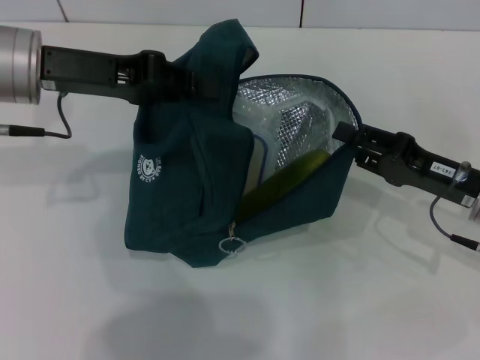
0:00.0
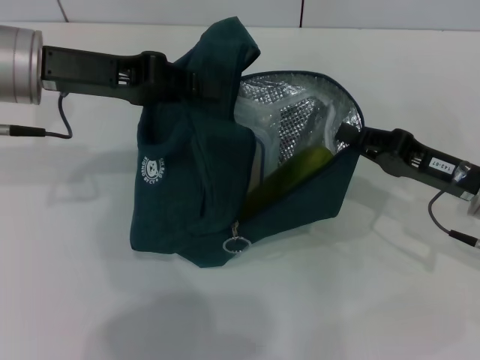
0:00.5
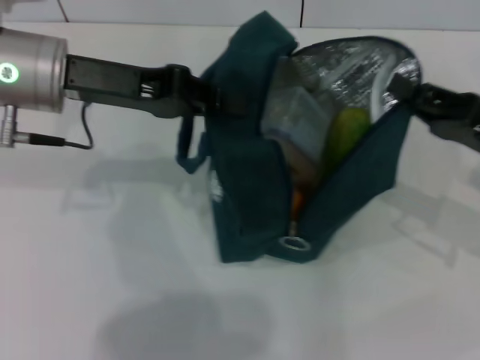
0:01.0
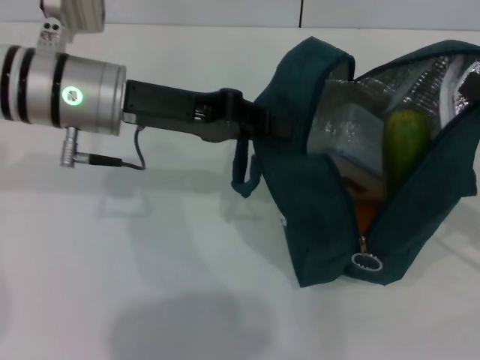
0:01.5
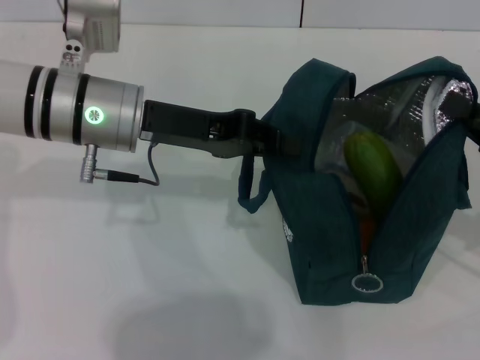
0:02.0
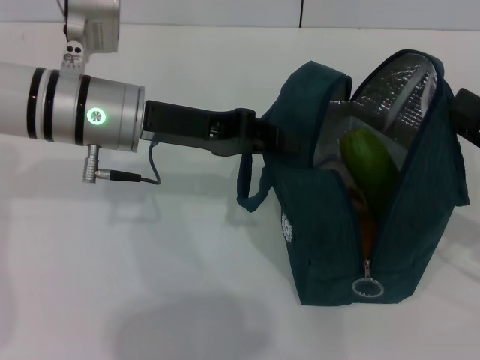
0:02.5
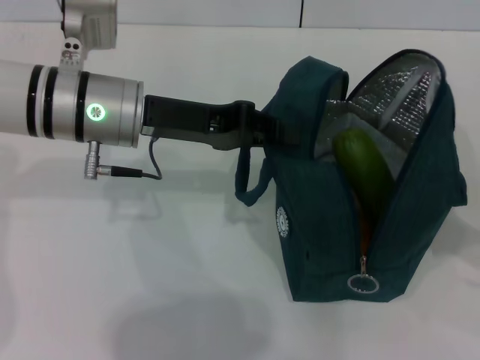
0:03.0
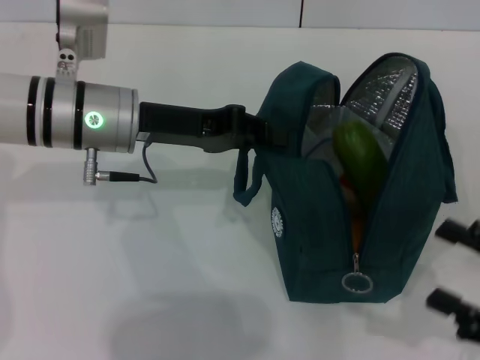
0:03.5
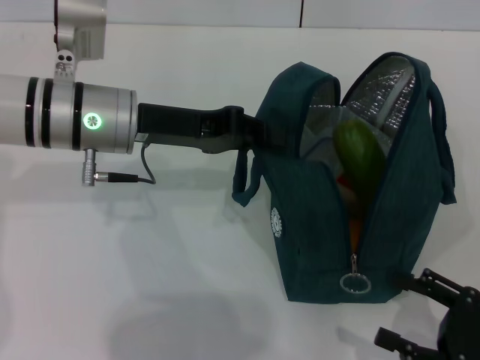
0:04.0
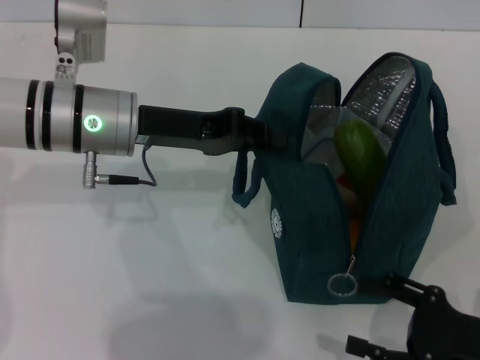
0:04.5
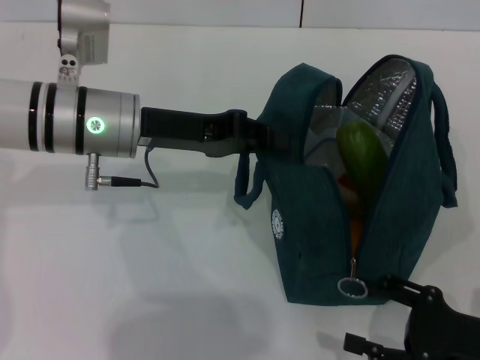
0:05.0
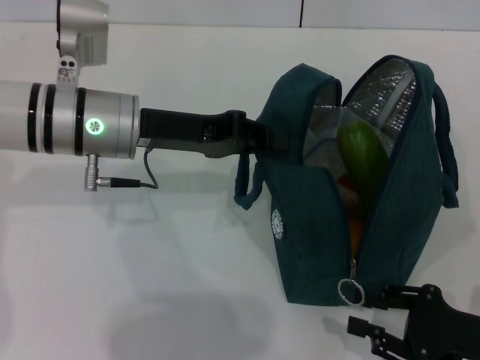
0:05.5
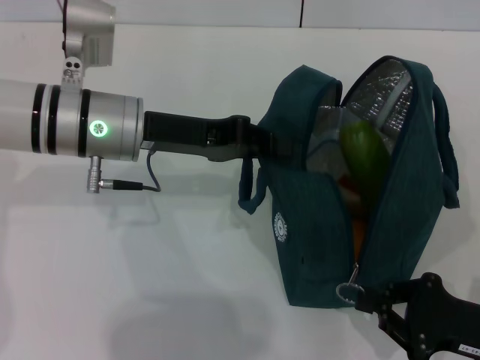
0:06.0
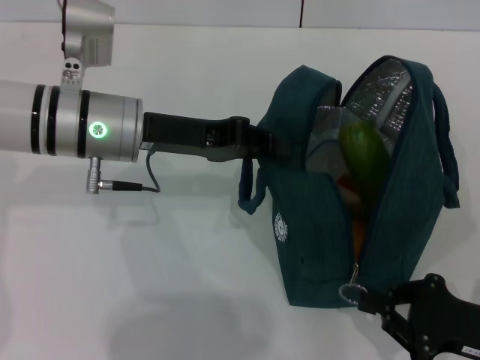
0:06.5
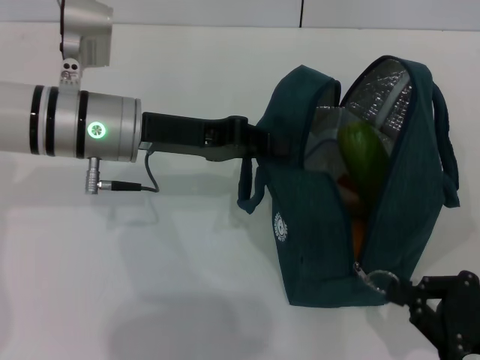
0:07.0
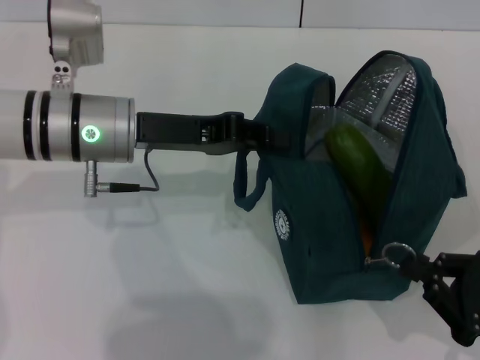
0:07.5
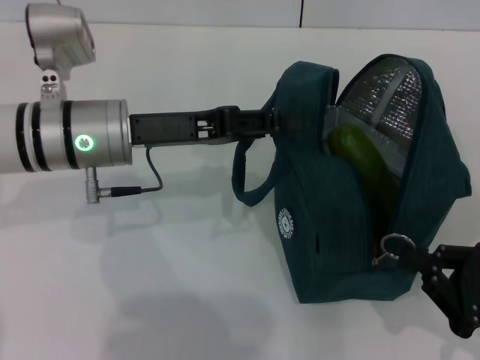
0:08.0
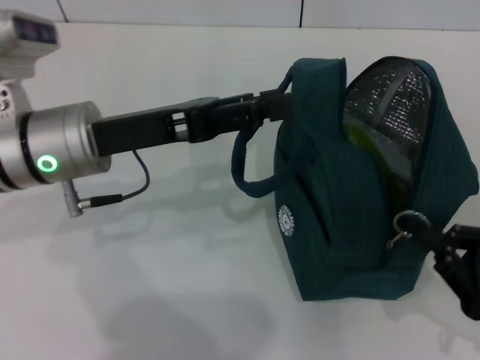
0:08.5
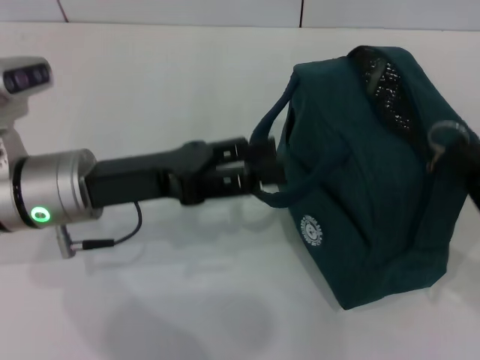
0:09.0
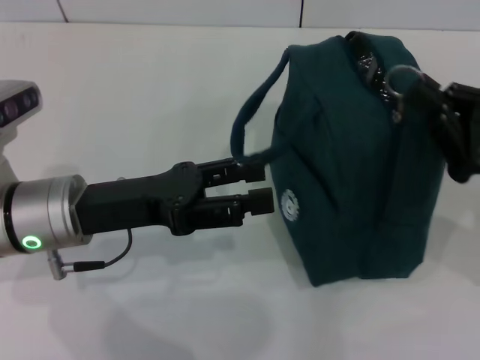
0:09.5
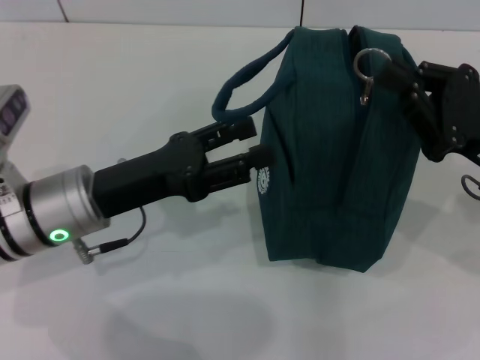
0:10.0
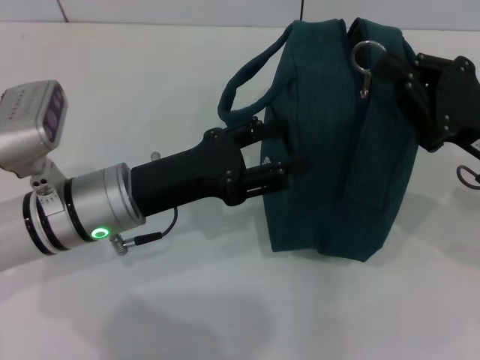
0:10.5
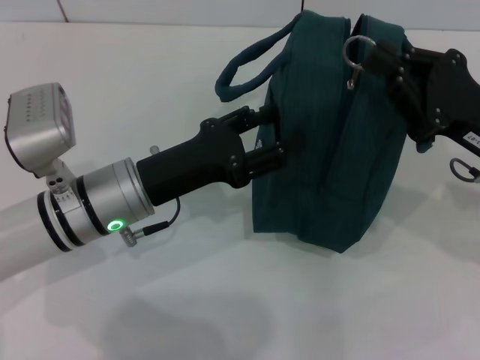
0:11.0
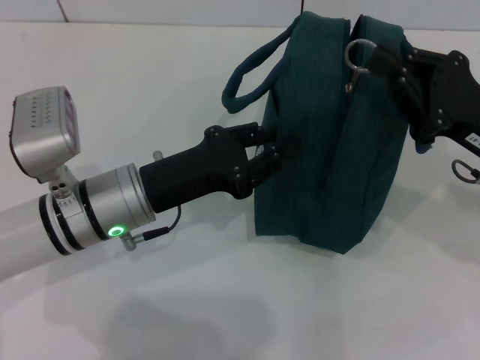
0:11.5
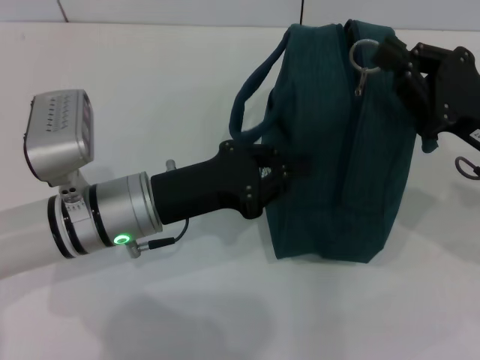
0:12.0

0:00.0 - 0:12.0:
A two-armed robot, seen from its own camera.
Step, 0:00.0 - 0:02.5: Hold the lunch bag with your right hand.
Step, 0:03.0 - 0:08.0: Hold the lunch bag with your left hand.
0:00.0 - 0:02.0: Both grippers travel together to the right, roughly 5 cm. The right gripper closes.
0:02.0 - 0:04.0: The right gripper goes approximately 15 cm backward and downward, and opens.
0:04.0 - 0:06.0: The right gripper closes its fingers.
0:08.0 - 0:10.0: The right gripper is displaced forward and upward by approximately 15 cm; the left gripper heads backward, covering some 5 cm, and opens.
0:10.0 - 0:12.0: The left gripper closes up.

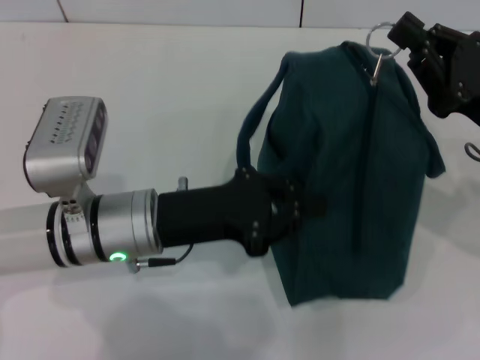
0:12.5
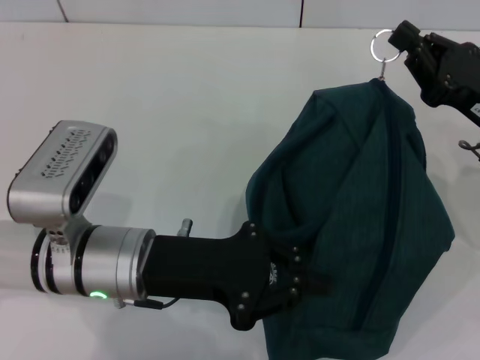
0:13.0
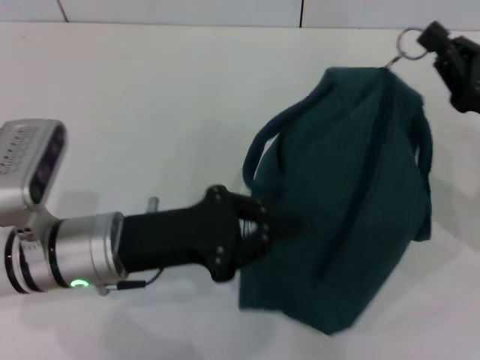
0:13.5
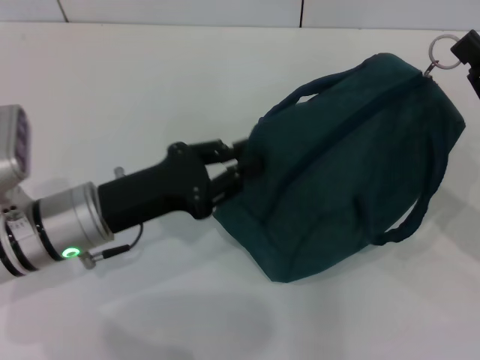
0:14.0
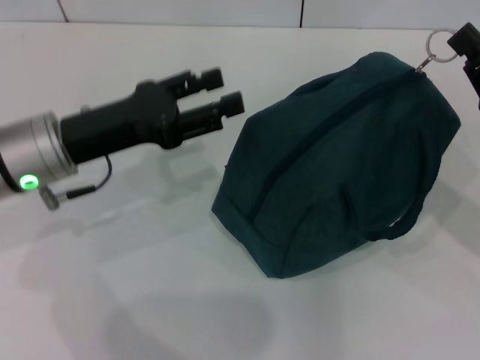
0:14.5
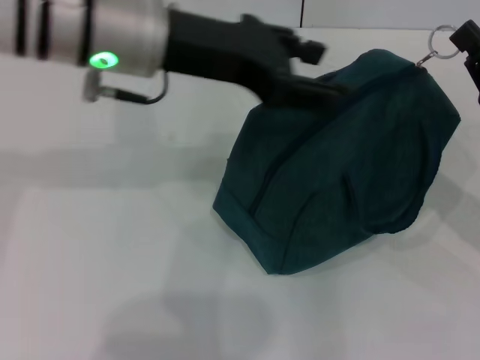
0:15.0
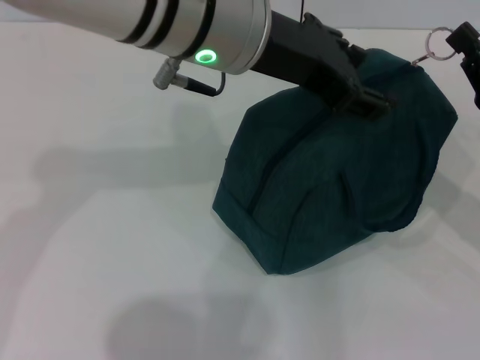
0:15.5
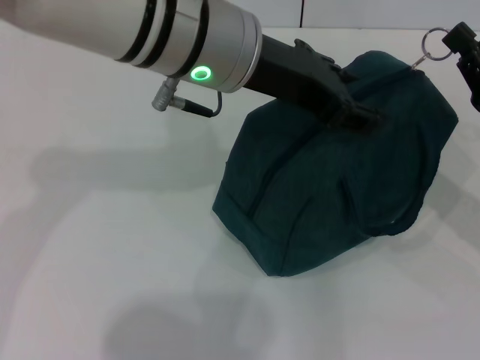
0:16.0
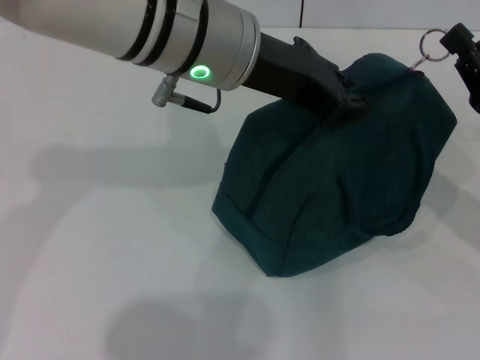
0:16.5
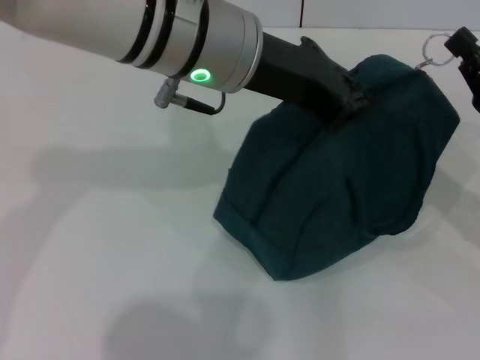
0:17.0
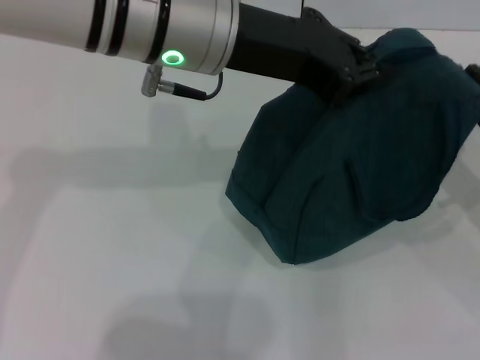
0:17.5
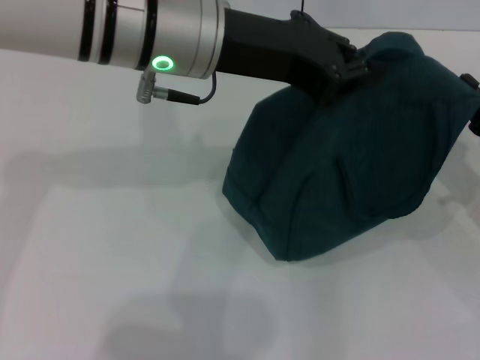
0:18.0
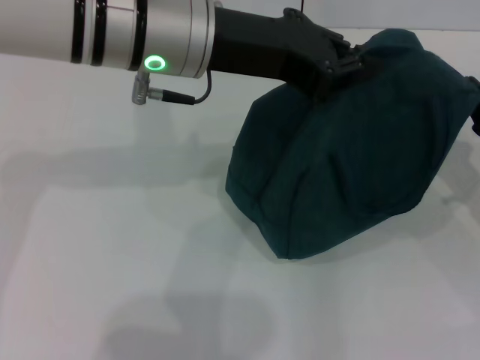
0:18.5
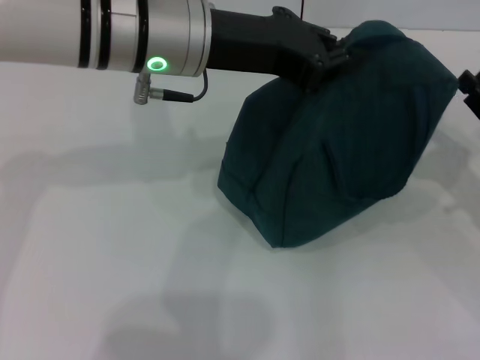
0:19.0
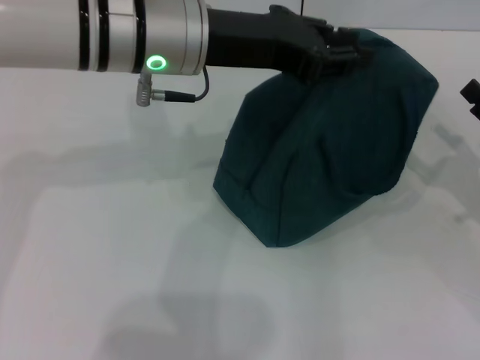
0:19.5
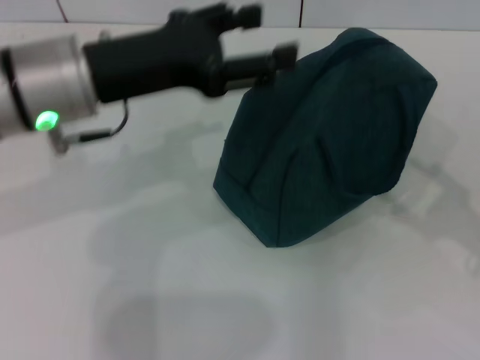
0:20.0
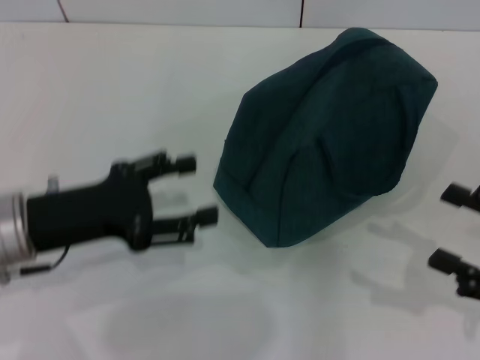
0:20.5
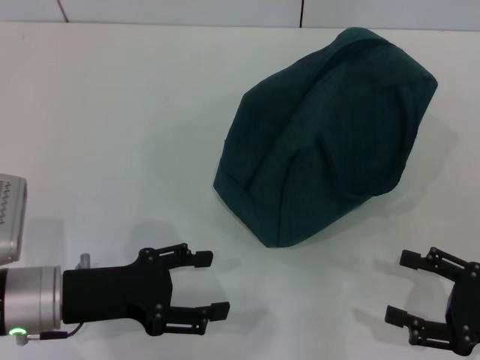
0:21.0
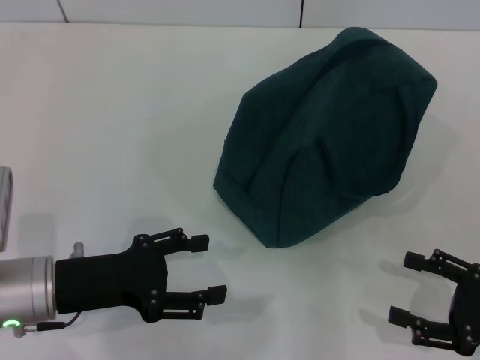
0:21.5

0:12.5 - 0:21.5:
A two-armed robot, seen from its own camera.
Step, 0:12.5 - 0:18.5: Zip up the lunch bag with your right hand.
Step, 0:19.0 - 0:19.5: Hold the lunch bag with your left hand.
0:12.5 - 0:14.5: The left gripper heads to the left, covering about 5 cm, and opens its fingers.
0:14.5 - 0:17.0: The left gripper travels to the right and upward by approximately 20 cm, and closes.
0:17.0 - 0:19.5: The right gripper ends up about 5 cm from where it was, and opens its fingers.
0:19.5 - 0:21.5: The left gripper shifts about 25 cm downward, to the left and backward, and opens up, while the right gripper moves backward, about 10 cm.

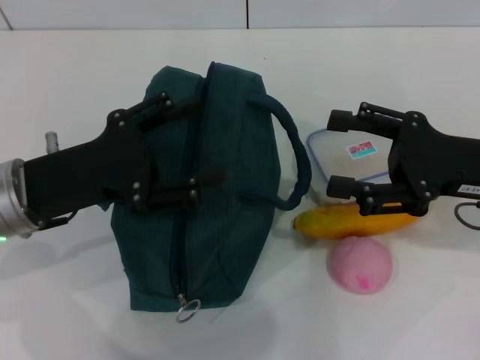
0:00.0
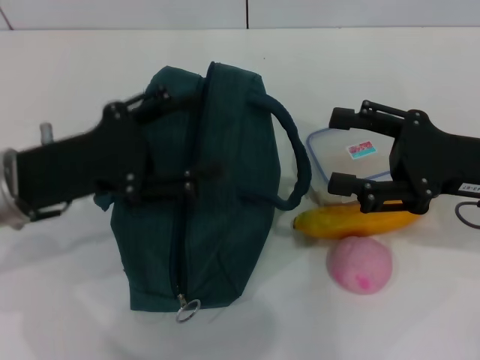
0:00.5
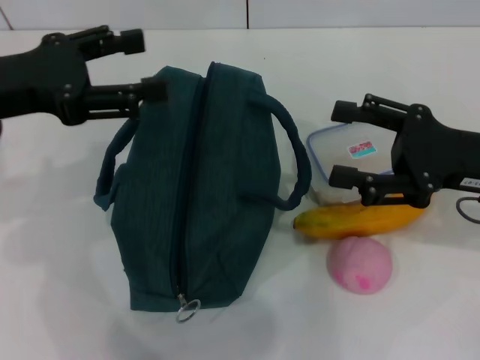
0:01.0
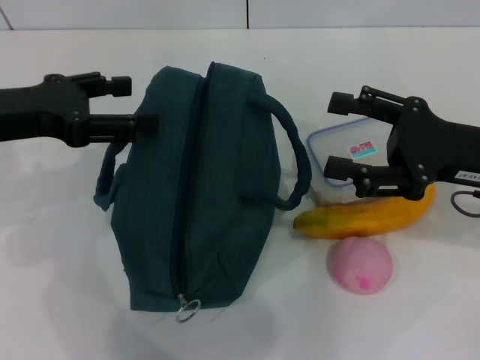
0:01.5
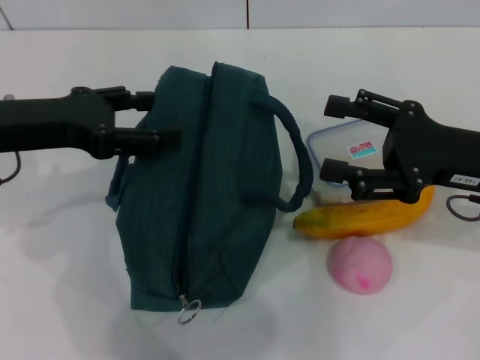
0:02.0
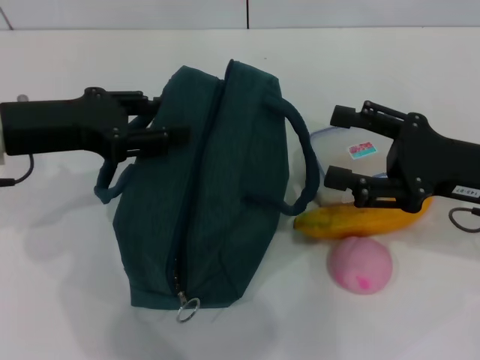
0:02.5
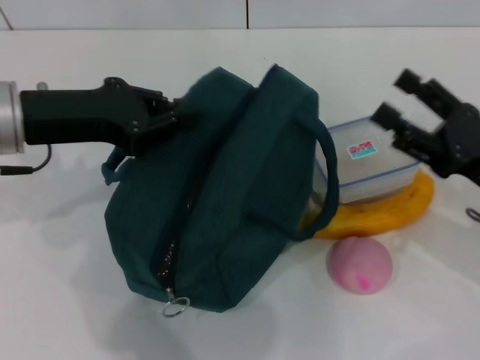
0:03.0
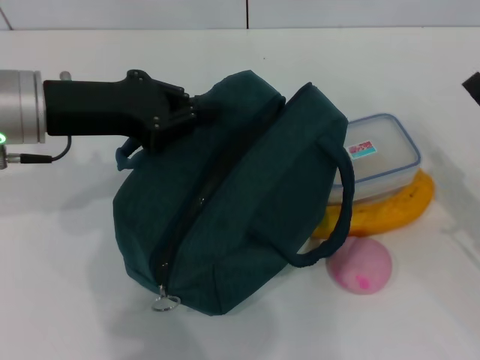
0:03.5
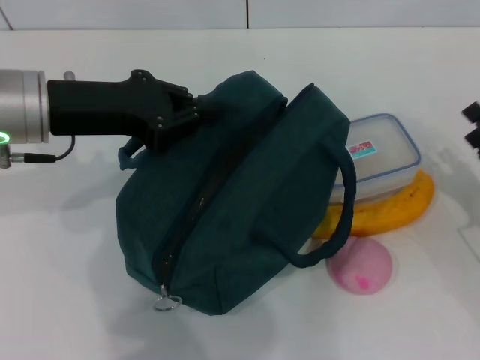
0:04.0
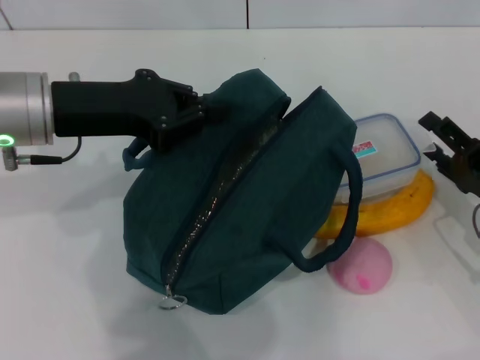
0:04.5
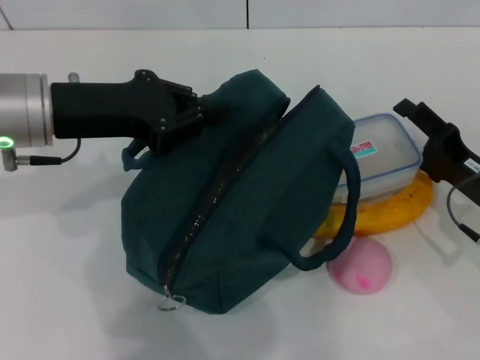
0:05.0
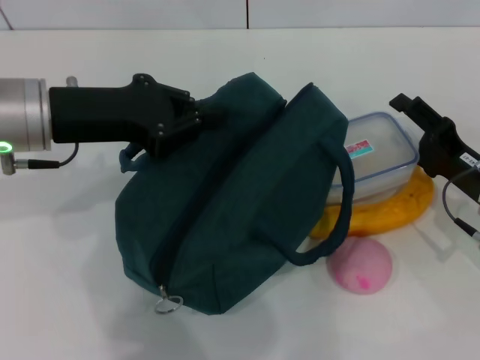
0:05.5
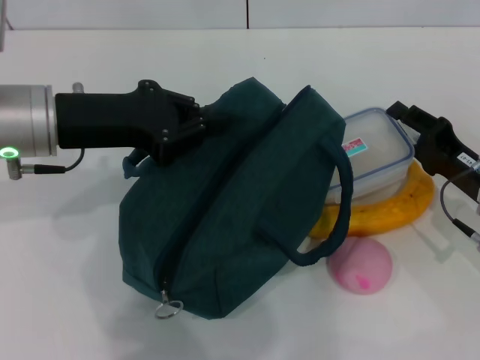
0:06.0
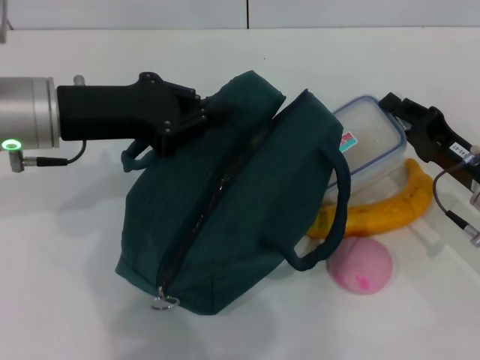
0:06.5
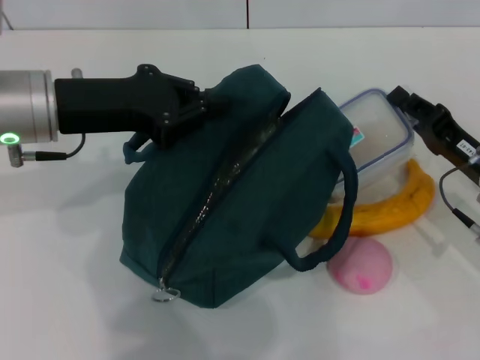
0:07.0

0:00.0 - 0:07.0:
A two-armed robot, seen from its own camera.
Step, 0:00.0 - 0:03.0: Hold the lunch bag with your left hand.
Step, 0:03.5 - 0:06.5: Pick up the lunch box with your right hand.
0:00.0 - 0:02.0: The left gripper goes roughly 5 cm upward.
0:02.0 - 0:03.5: The left gripper closes its fingers; the right gripper is displaced downward and to the right by roughly 10 cm.
0:03.5 - 0:05.0: The right gripper moves roughly 5 cm.
0:05.0 - 0:07.0: The right gripper closes up.
